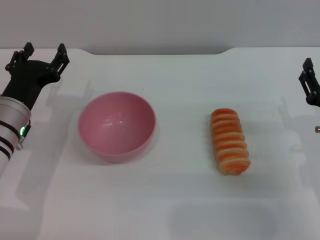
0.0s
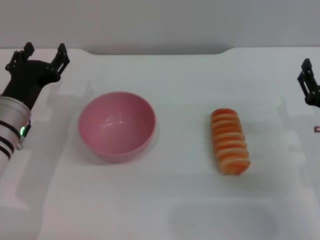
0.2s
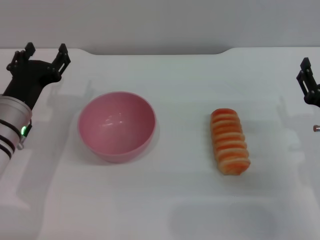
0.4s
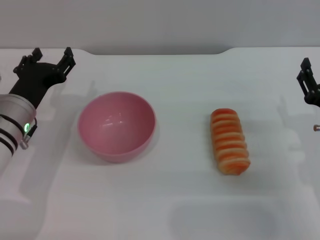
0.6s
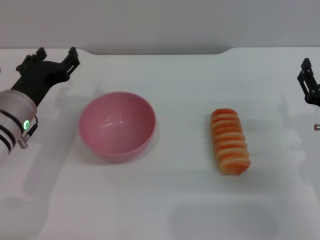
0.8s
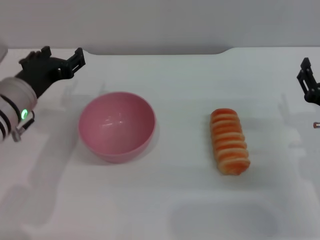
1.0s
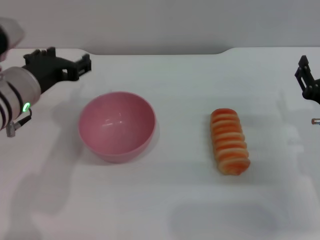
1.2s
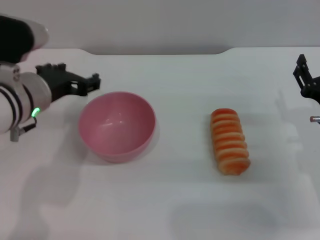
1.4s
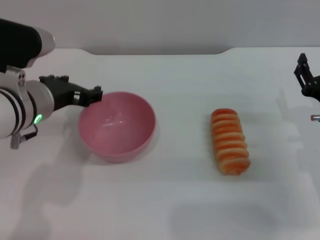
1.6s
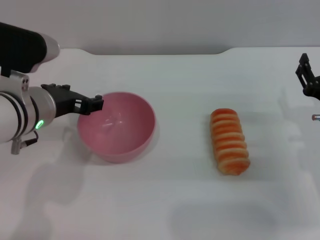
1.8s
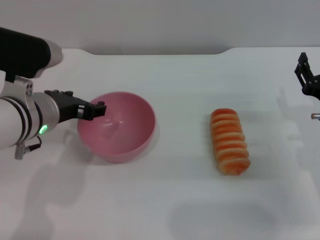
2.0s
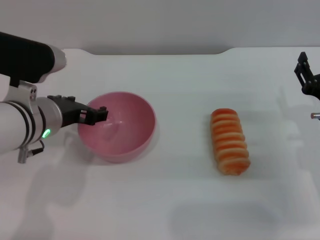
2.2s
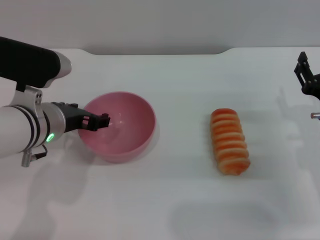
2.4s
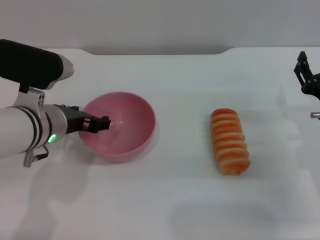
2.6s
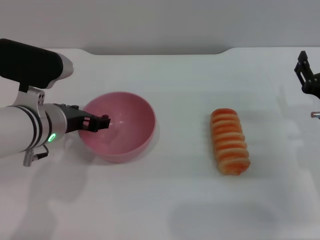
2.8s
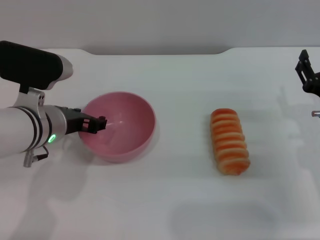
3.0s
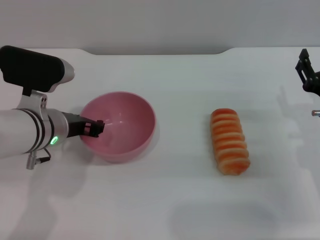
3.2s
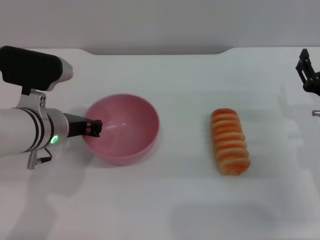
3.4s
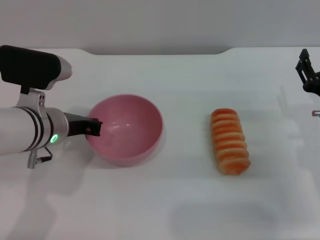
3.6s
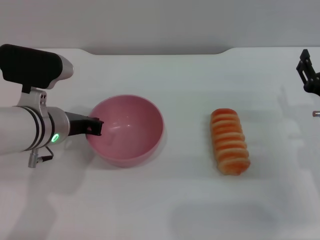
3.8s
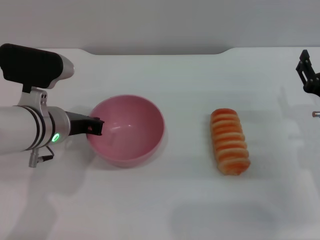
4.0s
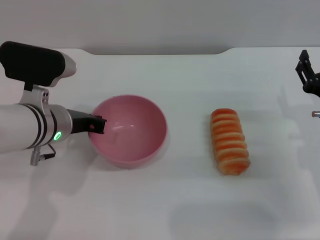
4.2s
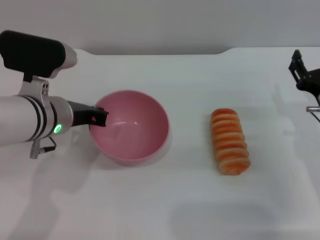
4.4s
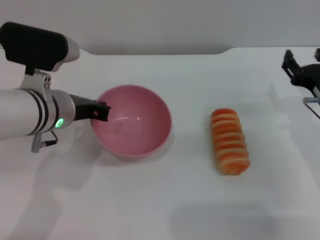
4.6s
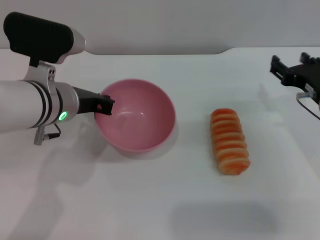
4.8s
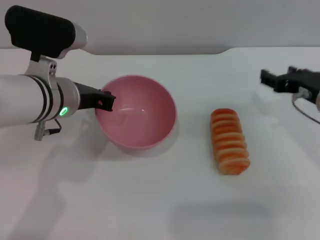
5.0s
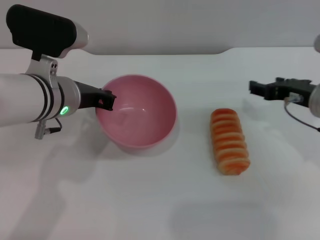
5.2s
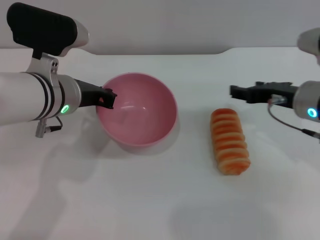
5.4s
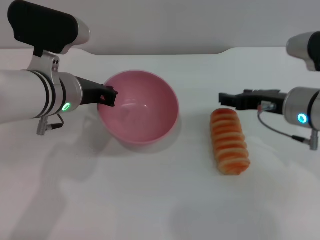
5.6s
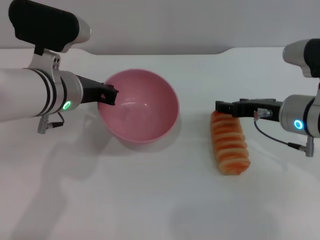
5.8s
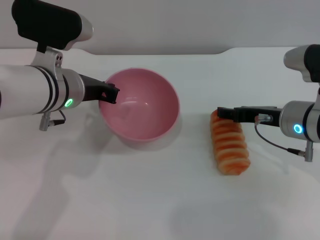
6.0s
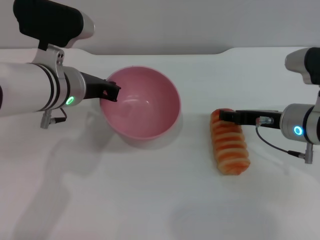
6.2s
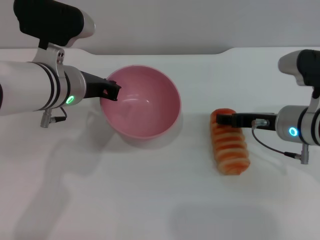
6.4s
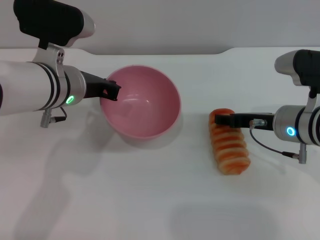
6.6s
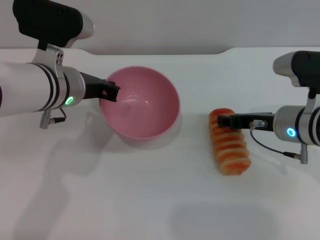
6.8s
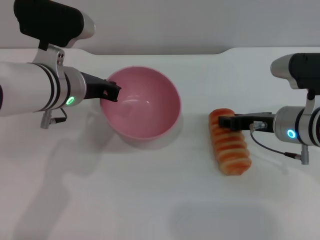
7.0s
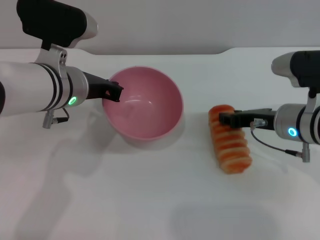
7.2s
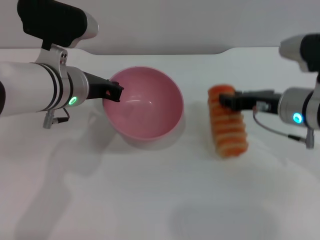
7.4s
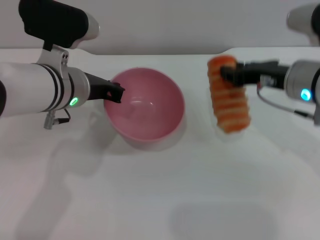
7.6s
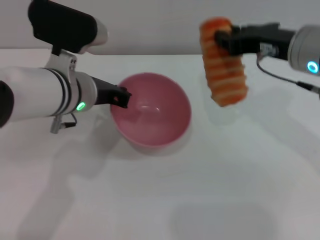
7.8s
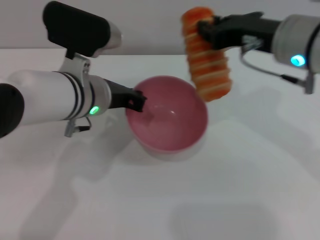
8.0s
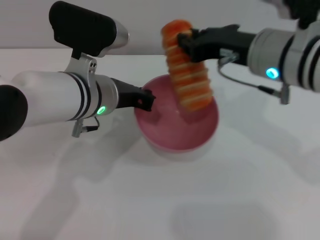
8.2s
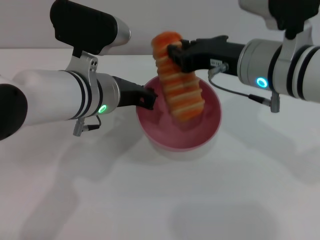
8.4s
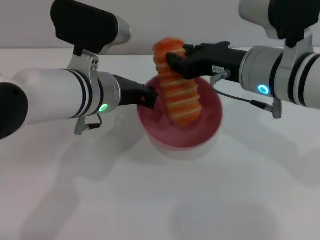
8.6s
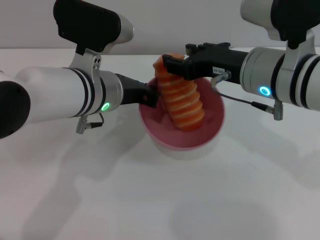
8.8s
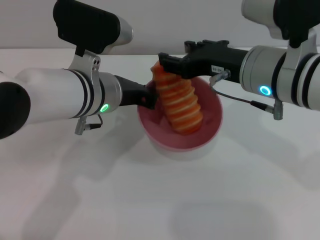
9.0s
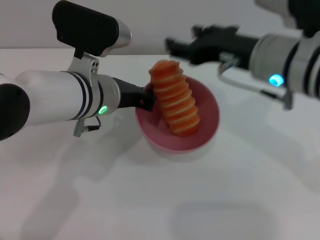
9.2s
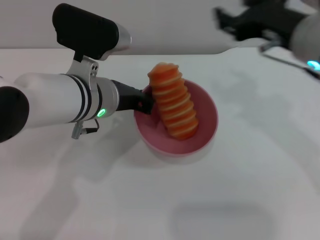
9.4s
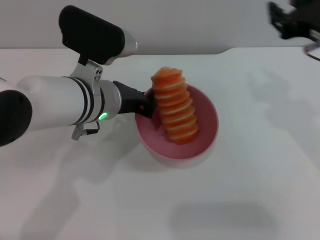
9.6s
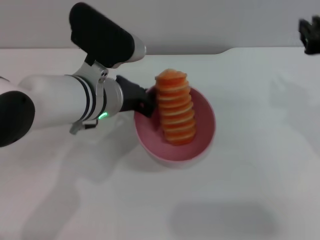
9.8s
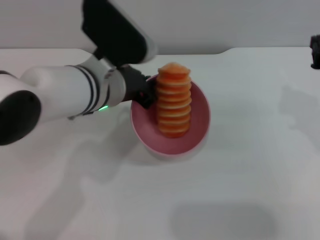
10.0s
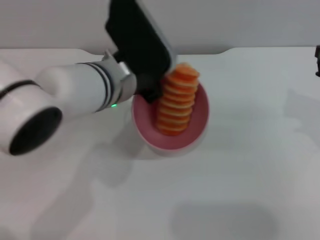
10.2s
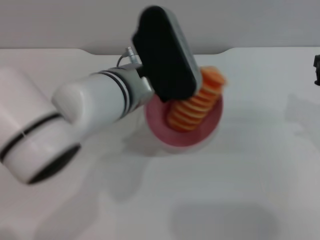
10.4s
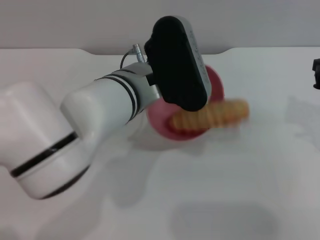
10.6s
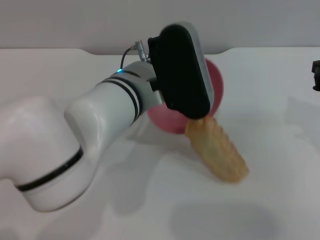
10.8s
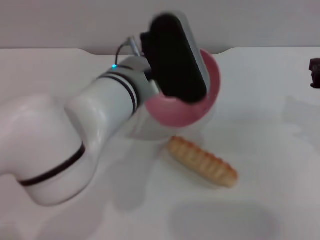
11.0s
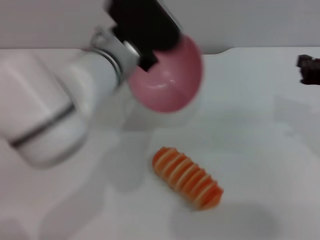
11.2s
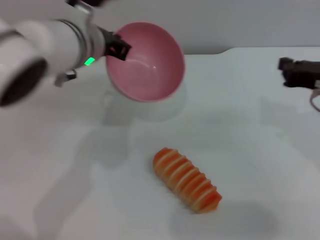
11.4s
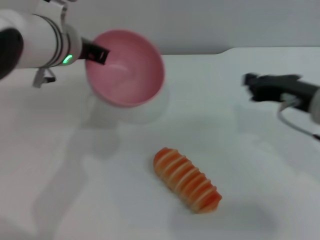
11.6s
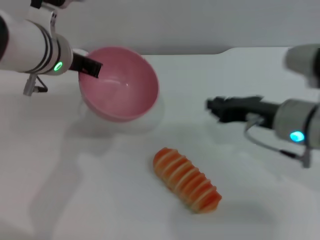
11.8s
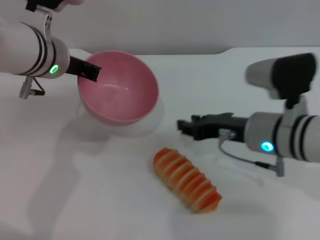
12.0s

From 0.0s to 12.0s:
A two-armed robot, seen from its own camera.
Task of the whole recording: put the bread into the pink bowl and pour it out repeatedly.
Step, from 0.0s to 5.6s: Pick up the bowl with the left gripper.
Step, from 5.8s to 7.4s: Pick up the bread with the right gripper.
Step, from 7.6s to 9.4s: Place the bread into the bowl.
Step, from 9.6s to 11.2s: Pour the bread out of the bowl.
From 0.0s to 1.6s: The left gripper is displaced upward and to the right by approximately 10 cm.
From 1.6s to 3.0s: The grippers stay close to where they were, moving slightly.
From 3.0s to 4.4s: The left gripper closes.
From 4.4s to 6.0s: The right gripper changes place by some 5 cm.
From 6.0s to 7.6s: The right gripper heads upward, covering roughly 5 cm, and closes up.
From 7.6s to 9.0s: The right gripper travels to the left by approximately 5 cm, and opens.
From 9.0s to 10.4s: The right gripper moves to the right, some 15 cm, and closes its fingers. Meanwhile the left gripper shifts by approximately 5 cm.
From 10.4s to 12.0s: The left gripper heads to the left, covering roughly 10 cm; the right gripper shifts some 15 cm to the left and downward.

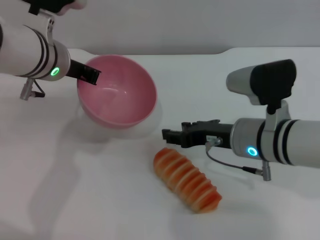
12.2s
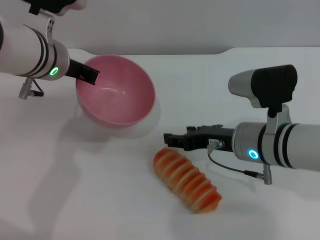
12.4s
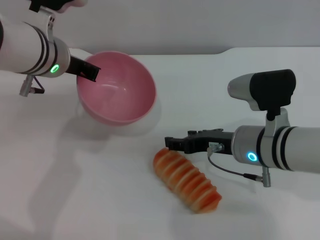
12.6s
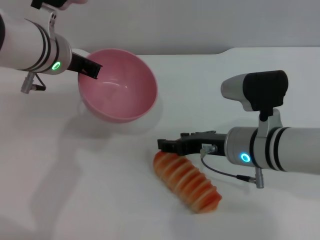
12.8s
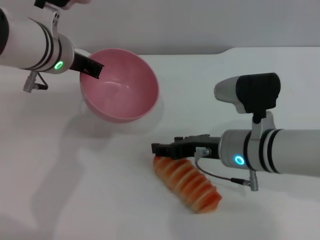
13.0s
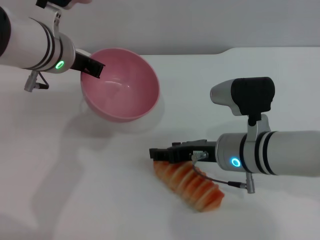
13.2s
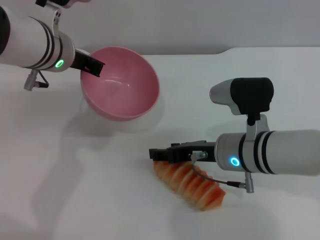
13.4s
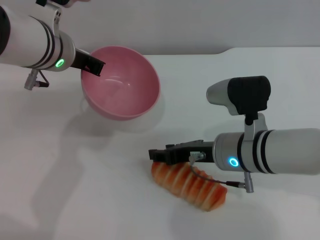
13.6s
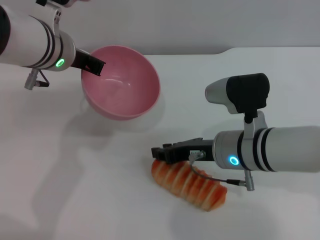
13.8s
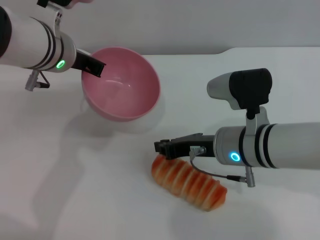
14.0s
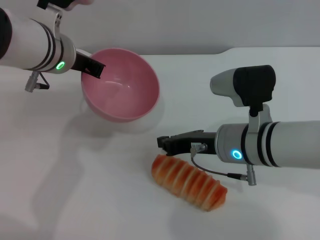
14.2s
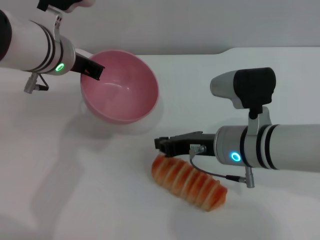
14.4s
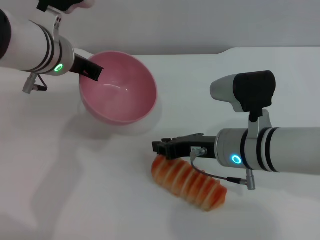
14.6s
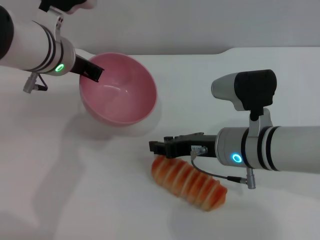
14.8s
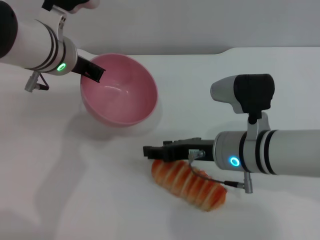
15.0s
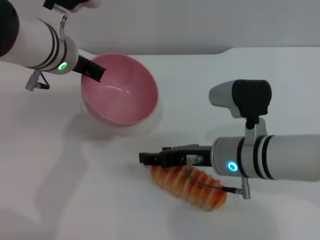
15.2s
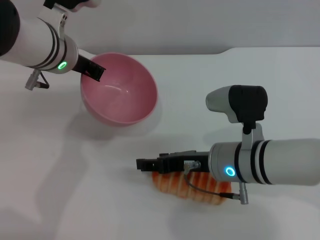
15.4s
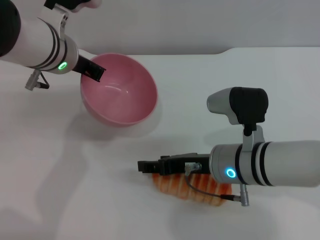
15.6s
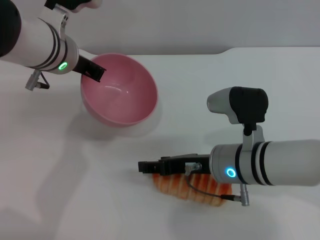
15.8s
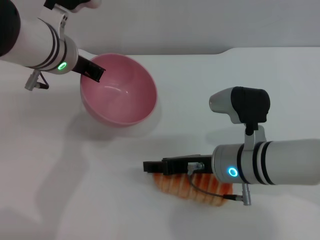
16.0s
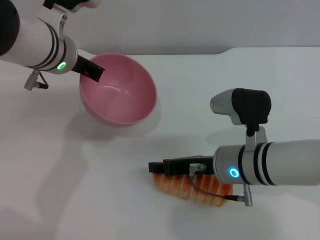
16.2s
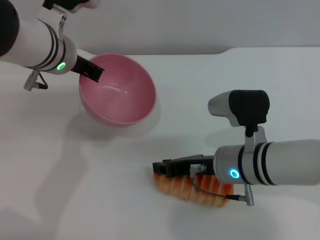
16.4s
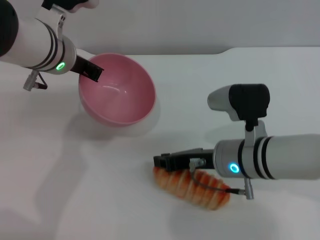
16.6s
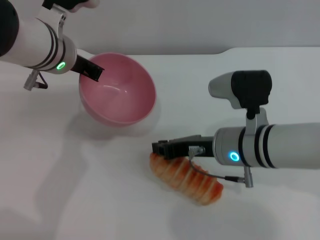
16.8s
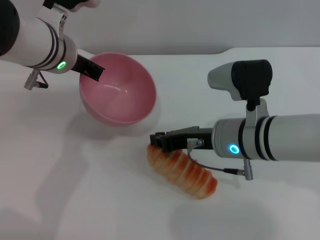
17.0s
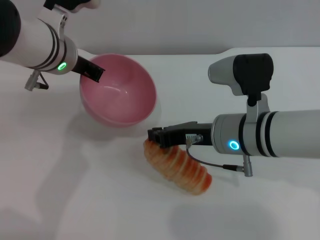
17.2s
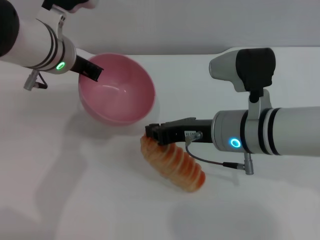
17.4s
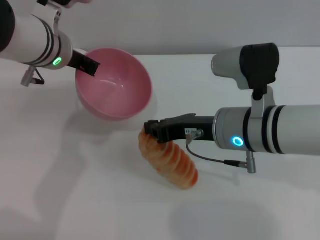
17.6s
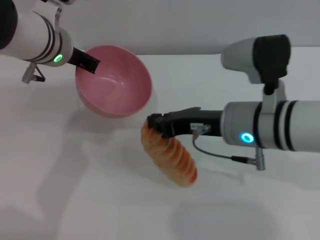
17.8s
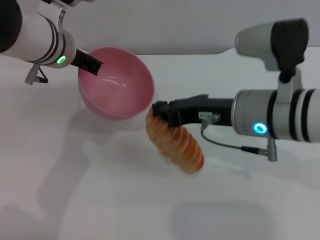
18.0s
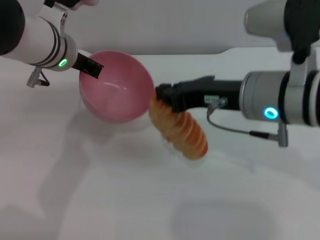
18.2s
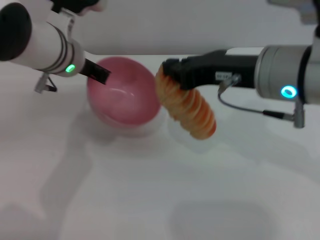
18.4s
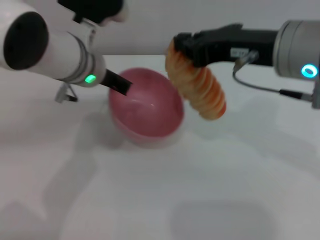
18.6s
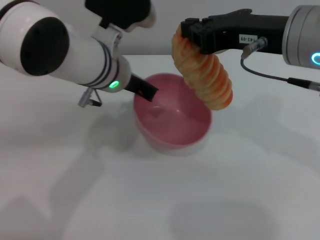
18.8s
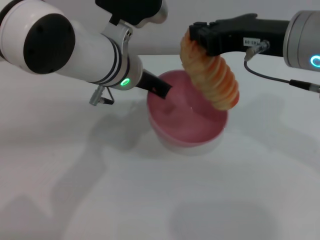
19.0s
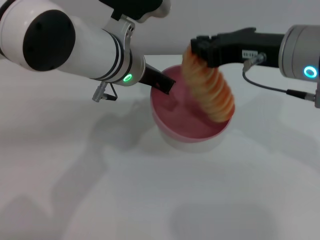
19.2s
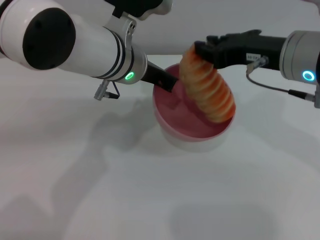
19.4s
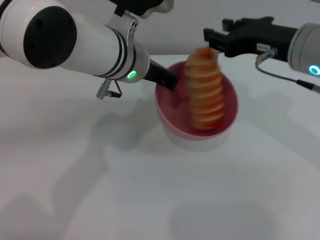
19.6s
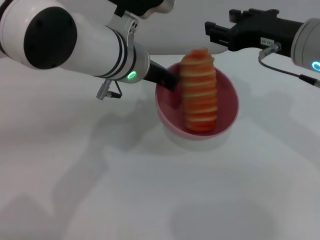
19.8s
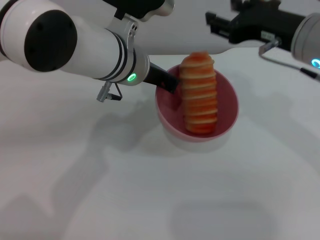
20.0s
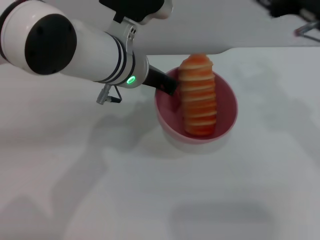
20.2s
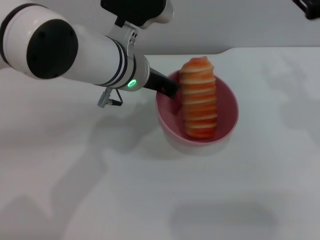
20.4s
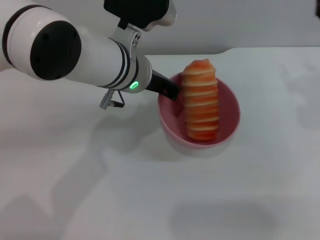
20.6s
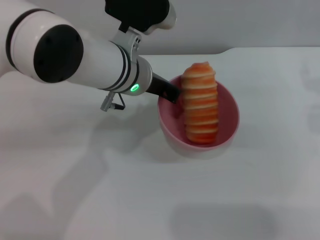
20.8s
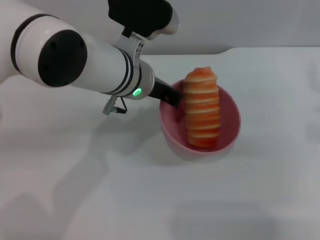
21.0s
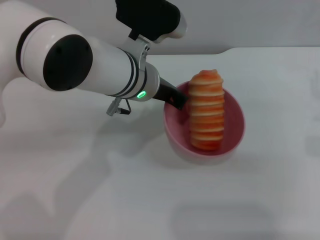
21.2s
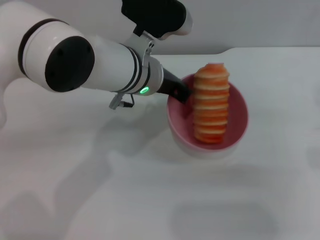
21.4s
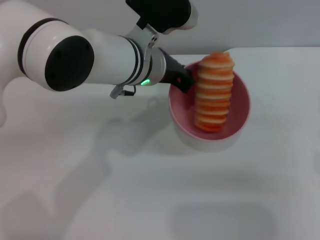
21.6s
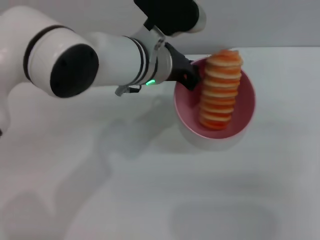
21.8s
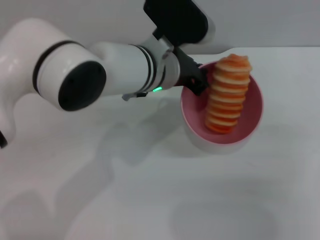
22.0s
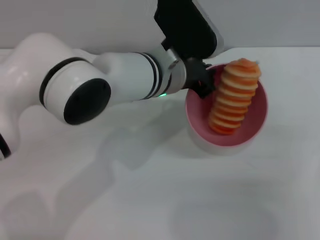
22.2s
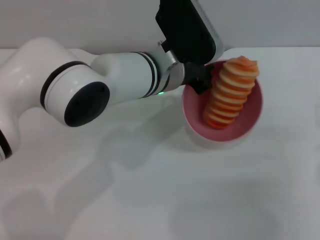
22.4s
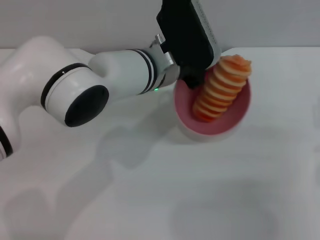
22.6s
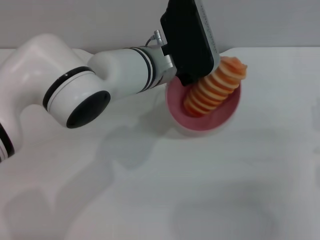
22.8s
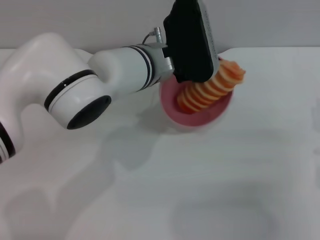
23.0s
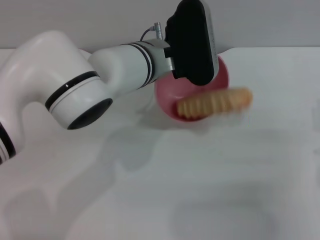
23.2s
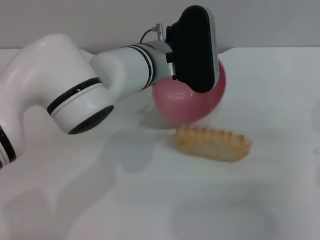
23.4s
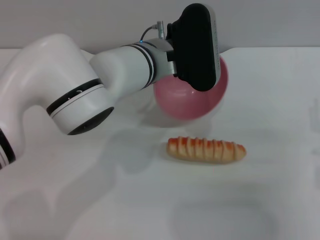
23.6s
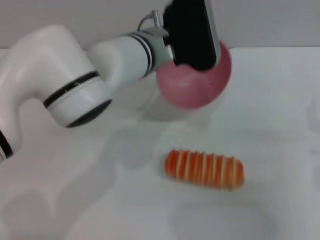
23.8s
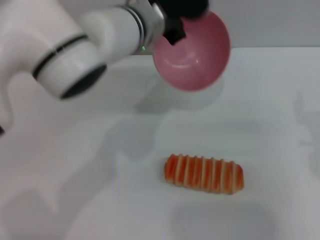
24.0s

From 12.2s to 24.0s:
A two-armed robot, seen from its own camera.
Task of the whole recording: put the bread into the pink bowl and pour it out repeatedly.
Step, from 12.2s to 18.0s: Pick up the bread with the right gripper.
Step, from 18.2s to 20.0s: Place the bread into the bowl.
Step, from 20.2s to 24.0s: Pour the bread out of the bowl.
From 13.6s to 15.2s: The right gripper closes and opens again.
From 15.2s to 16.6s: The grippers make only small movements.
From 16.6s to 18.2s: The right gripper goes some 15 cm upward, and closes up.
From 18.2s to 19.6s: The left gripper heads to the right, covering roughly 10 cm; the right gripper heads to the right, covering some 5 cm, and opens.
From 19.6s to 21.0s: The right gripper moves to the right, some 10 cm, and opens up.
From 21.0s to 22.6s: The right gripper is displaced downward and backward by roughly 10 cm.
From 22.6s to 24.0s: The left gripper ends up some 5 cm from where it was.
